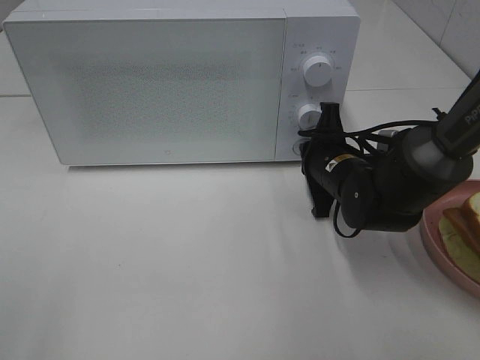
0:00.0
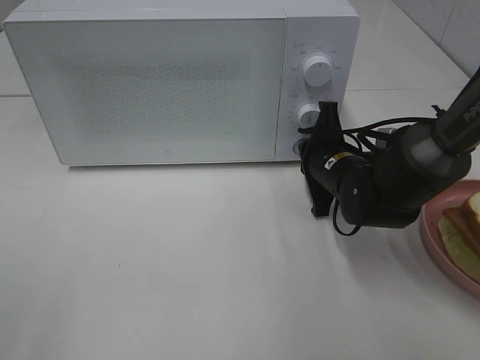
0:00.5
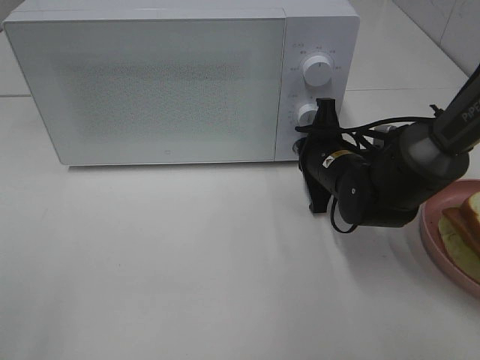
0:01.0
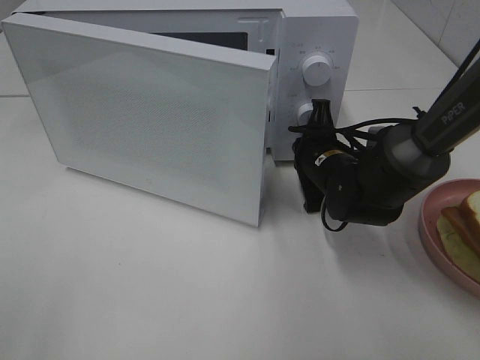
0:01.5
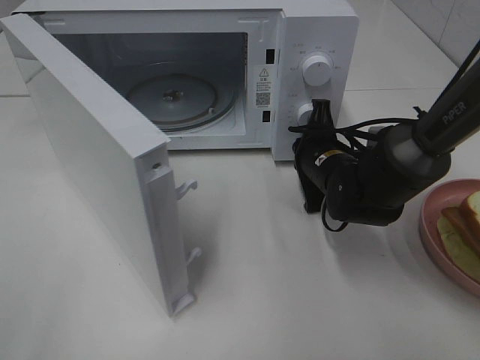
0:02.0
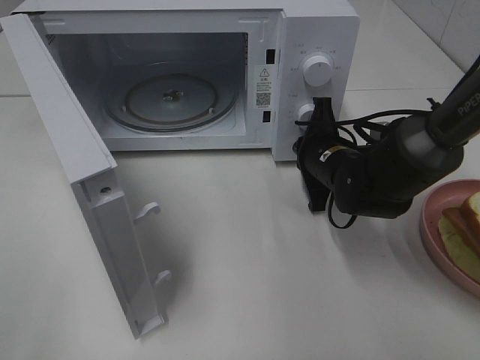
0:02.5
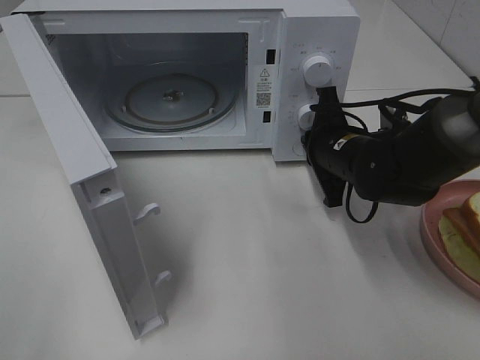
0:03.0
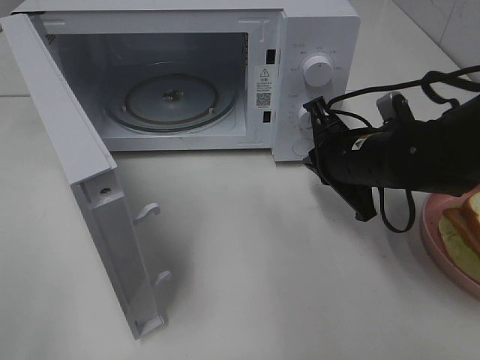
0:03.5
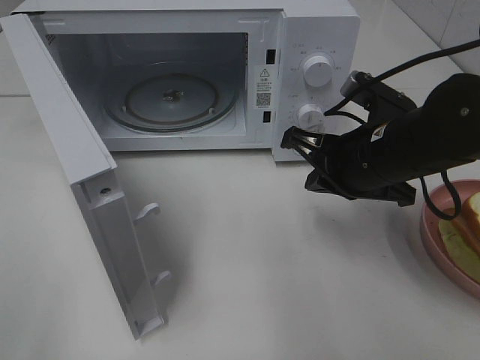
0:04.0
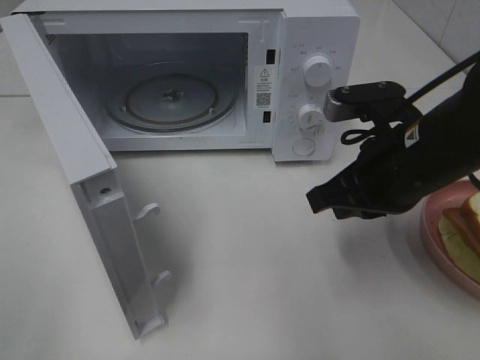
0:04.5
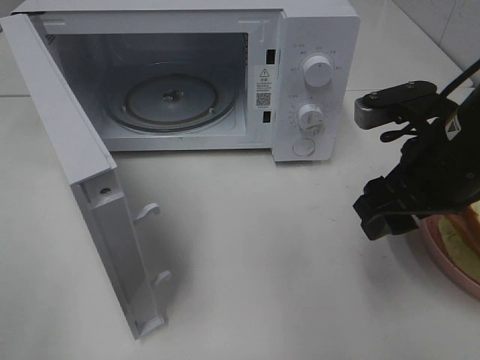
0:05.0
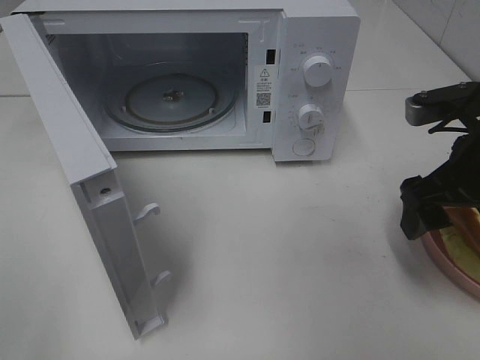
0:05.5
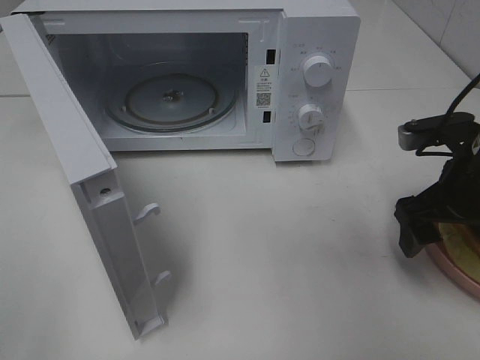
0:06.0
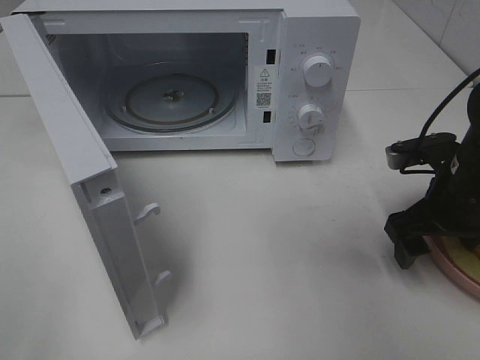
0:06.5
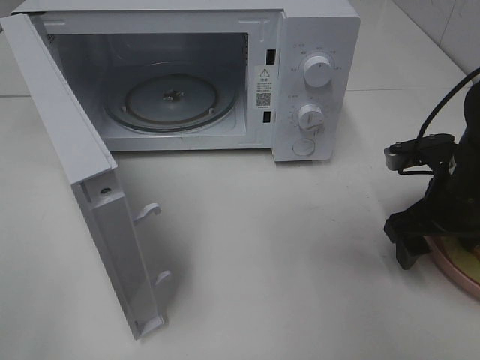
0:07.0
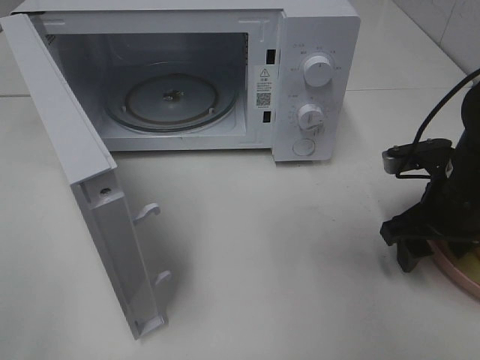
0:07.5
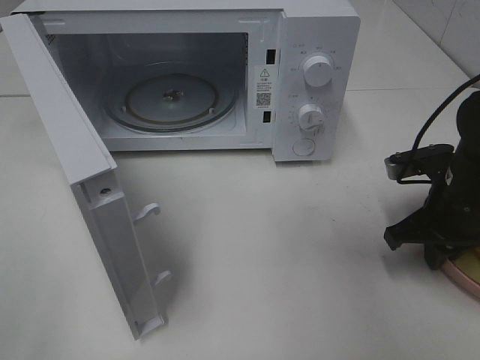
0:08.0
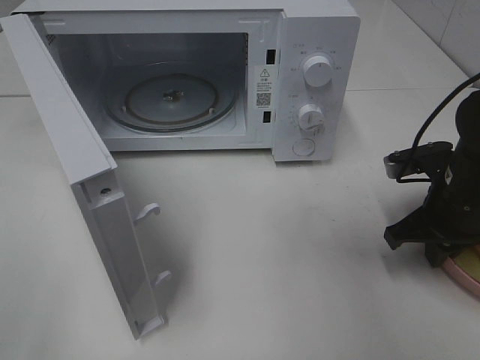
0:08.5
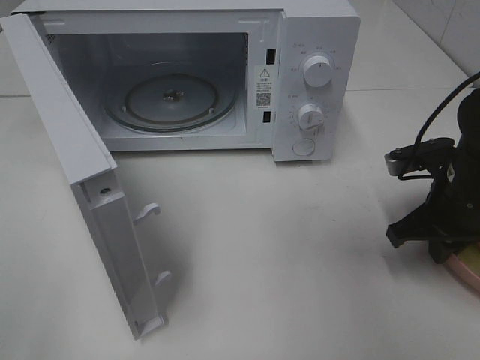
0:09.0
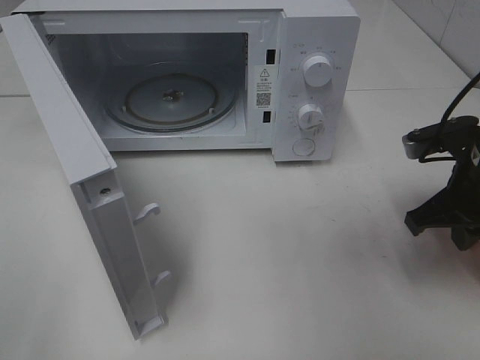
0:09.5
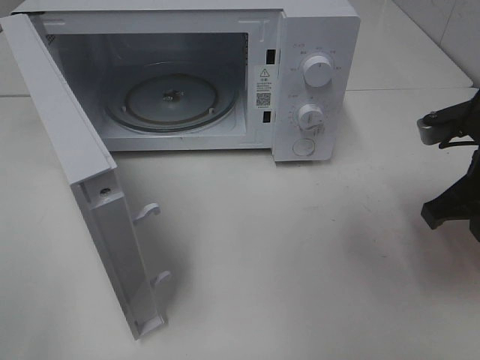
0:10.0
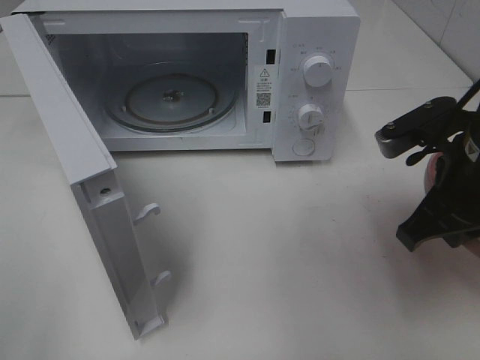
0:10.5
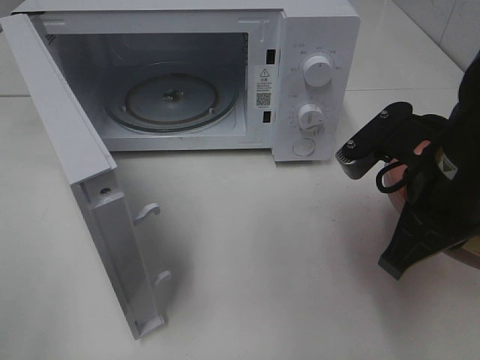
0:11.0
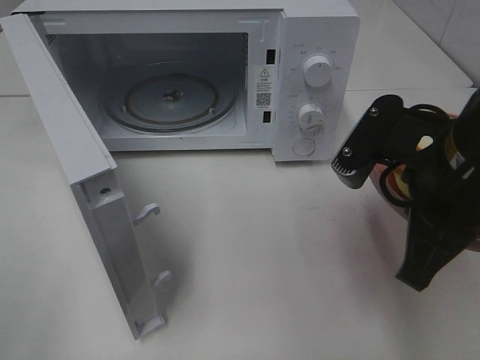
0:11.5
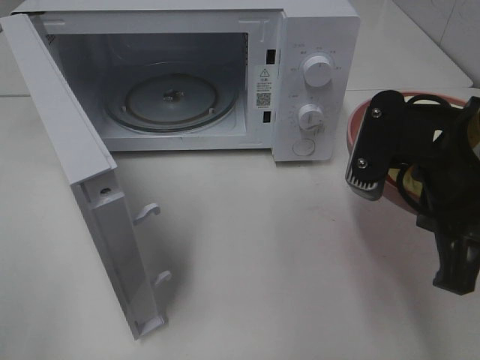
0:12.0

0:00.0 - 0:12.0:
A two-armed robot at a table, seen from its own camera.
Task of the whole recording: Heat Sandwich.
Step, 0:00.0 - 0:03.0: Right hand: press the switch.
Step, 0:03.5 - 0:08.5: Right hand: grab the plate with the sandwich.
0:02.0 - 0:04.0: The right gripper goes about 10 cm upward and backward.
0:04.0 - 0:06.0: The right gripper heads to the right, covering approximately 10 cm, and opens its fingers.
0:06.0 - 0:08.0: The right gripper closes its fingers.
0:08.0 - 0:10.0: The right gripper is displaced upward by approximately 10 cm.
0:10.0 - 0:12.0: The right gripper shifts roughly 10 cm to the left, backward and upward.

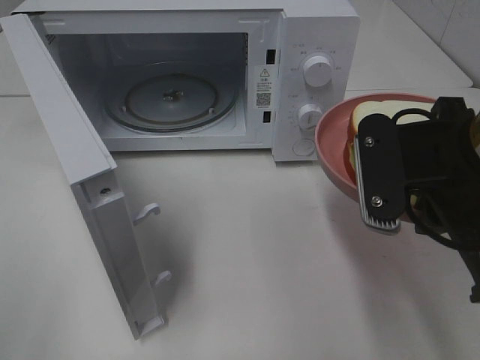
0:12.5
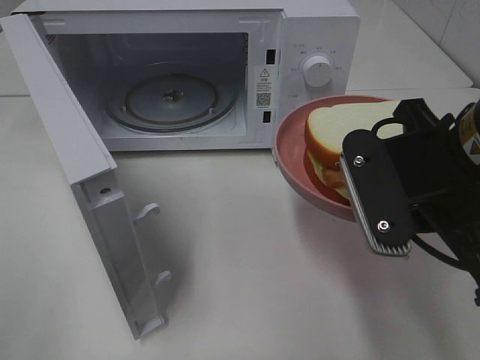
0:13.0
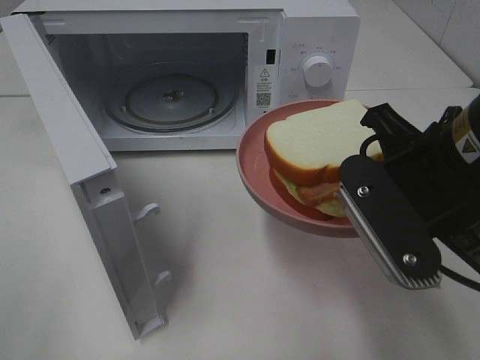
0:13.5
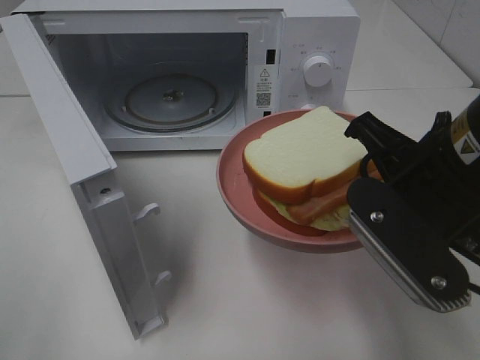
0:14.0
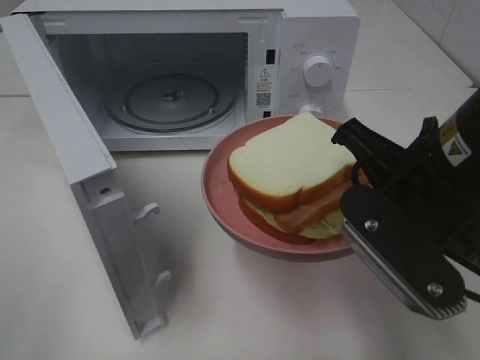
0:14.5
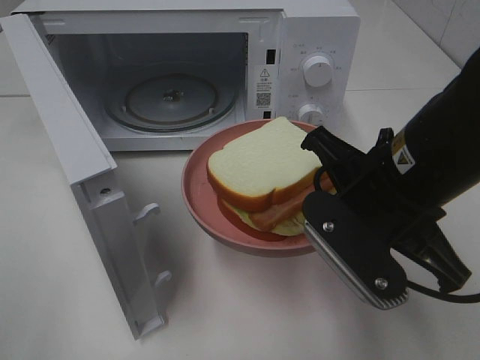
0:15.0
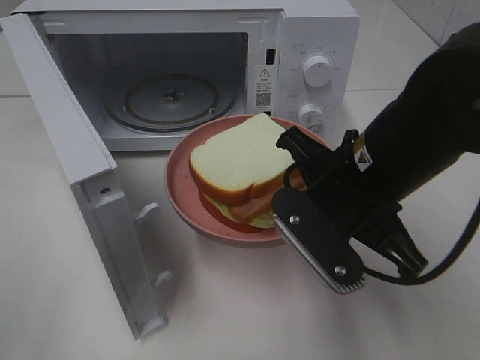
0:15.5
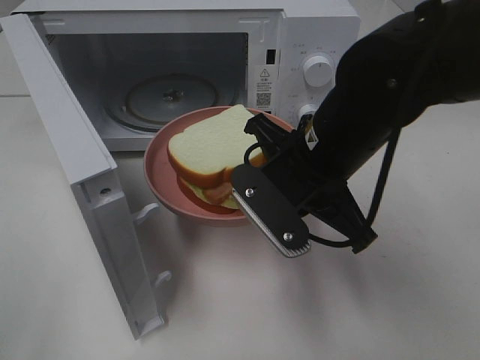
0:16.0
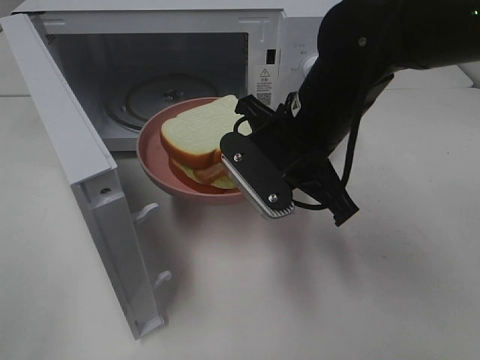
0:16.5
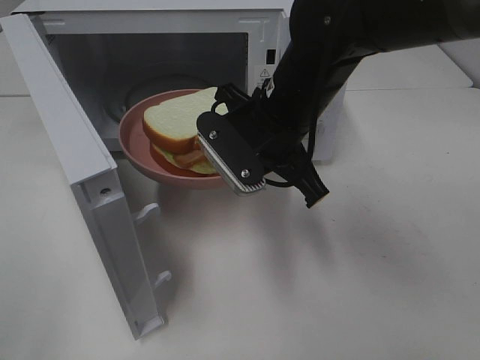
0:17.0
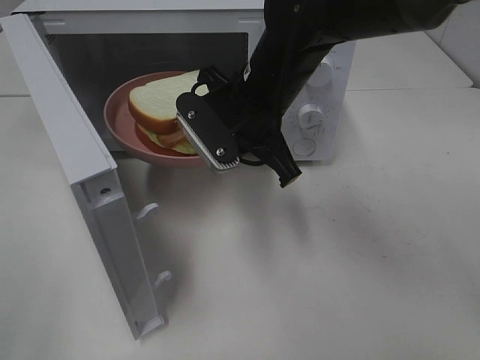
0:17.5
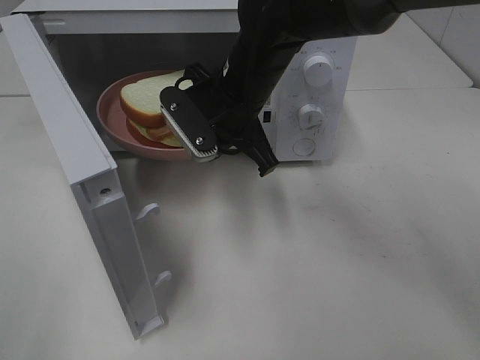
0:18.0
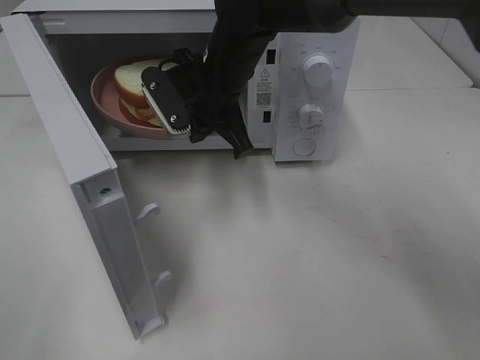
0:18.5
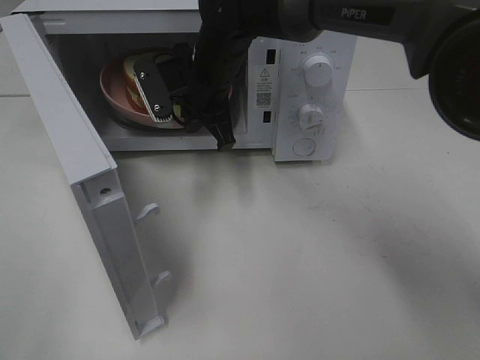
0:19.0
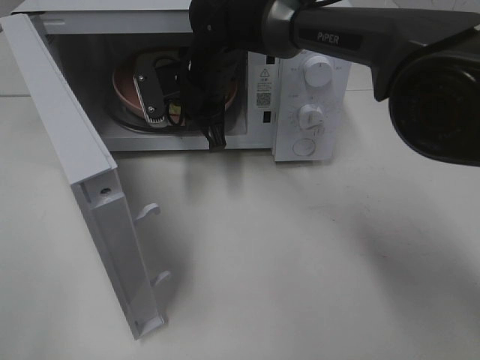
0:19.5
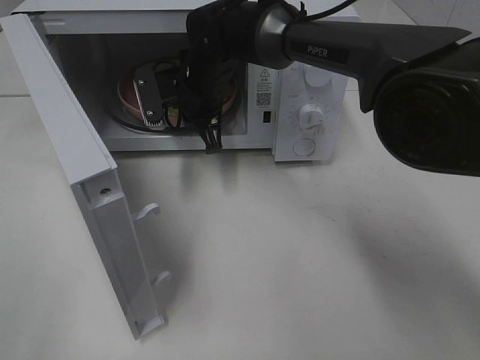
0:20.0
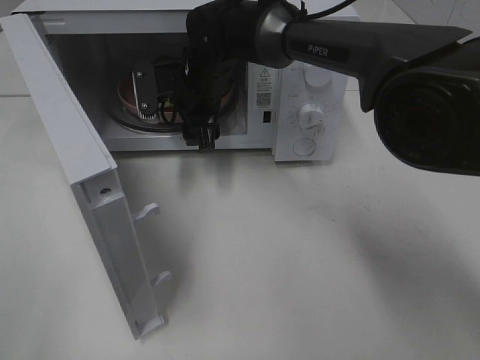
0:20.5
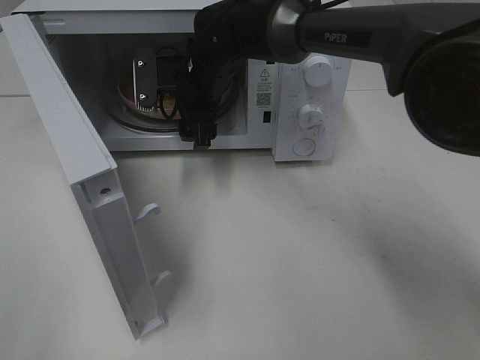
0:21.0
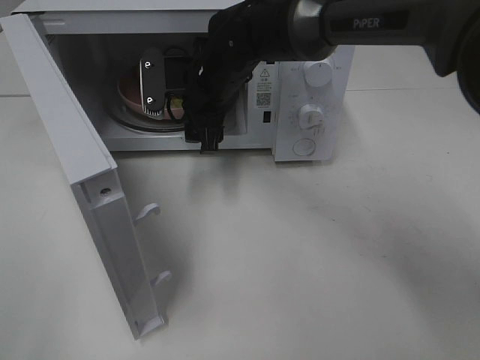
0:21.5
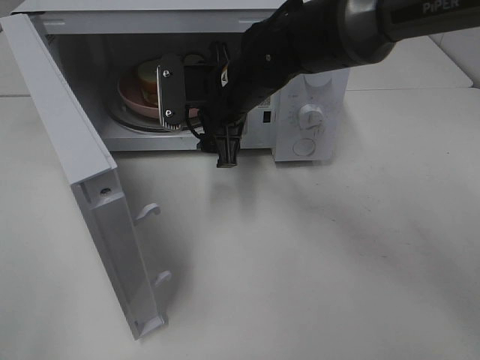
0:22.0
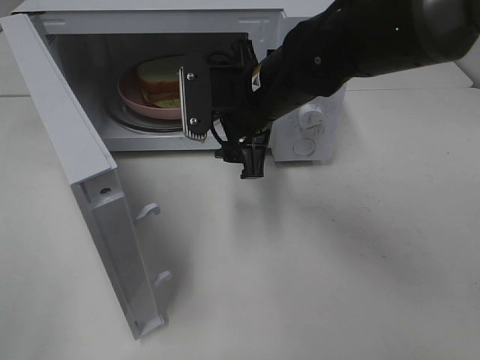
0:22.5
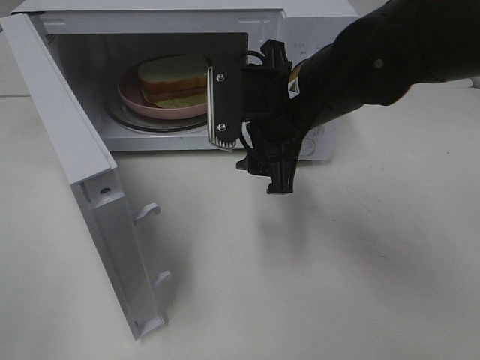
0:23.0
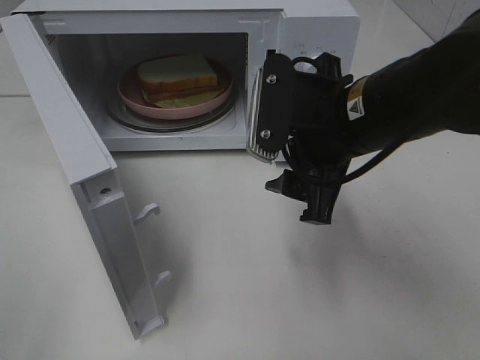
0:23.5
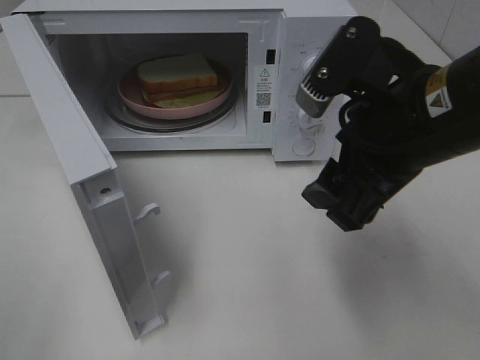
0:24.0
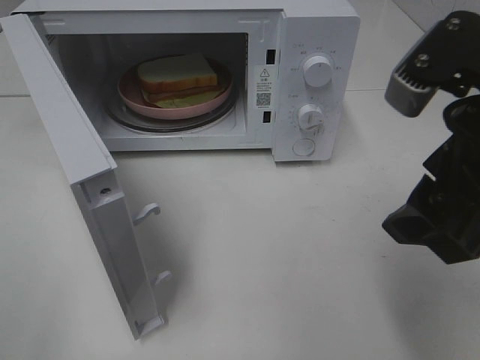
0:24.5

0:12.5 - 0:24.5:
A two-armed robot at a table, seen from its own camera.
Task of the whole recording: Heat Sandwich.
Step, 0:12.5 - 0:22.0: Right hand: place the plate in the microwave.
0:14.5 - 0:16.5: The right gripper moves forward and to the left, approximately 15 cm.
0:16.5 - 0:18.5: The right gripper shifts approximately 15 cm forward and to the left.
0:18.5 - 0:20.5: The right gripper moves forward, roughly 5 cm, and opens its fingers.
0:20.5 - 0:22.5: The right gripper is displaced backward and to the right by about 15 cm.
0:22.5 - 0:24.5: The right gripper heads backward, to the right and upward, covering approximately 25 cm.

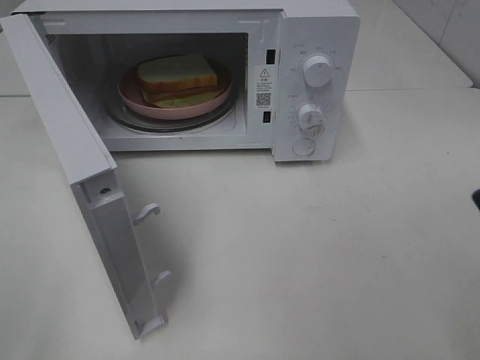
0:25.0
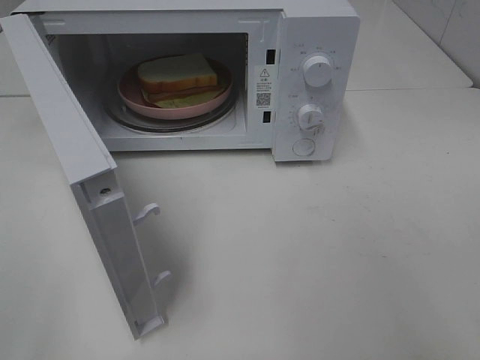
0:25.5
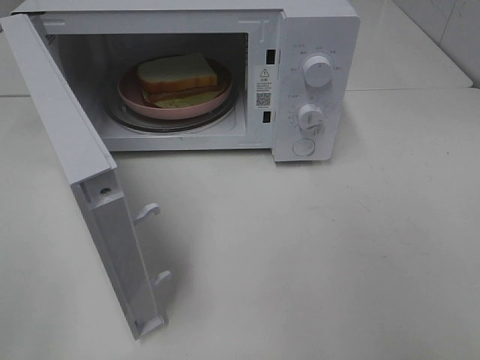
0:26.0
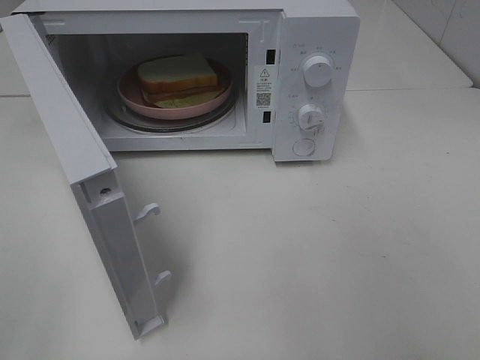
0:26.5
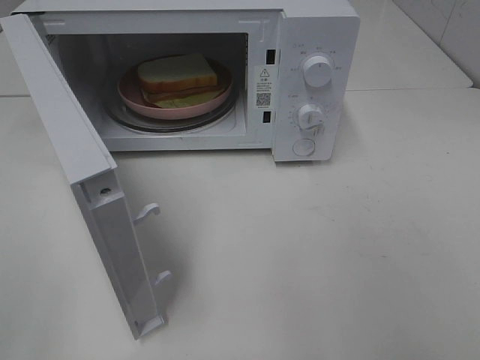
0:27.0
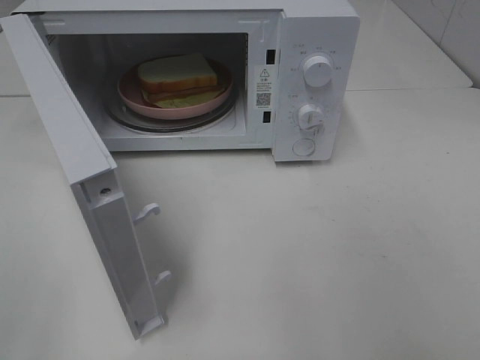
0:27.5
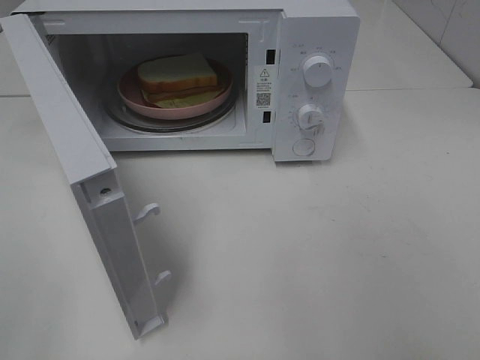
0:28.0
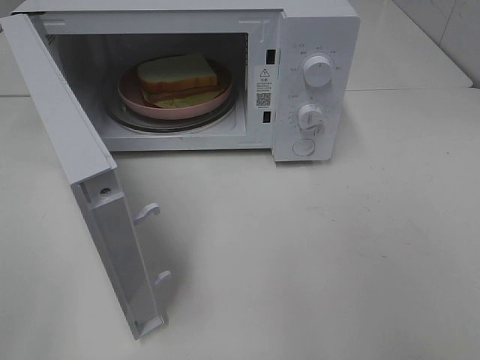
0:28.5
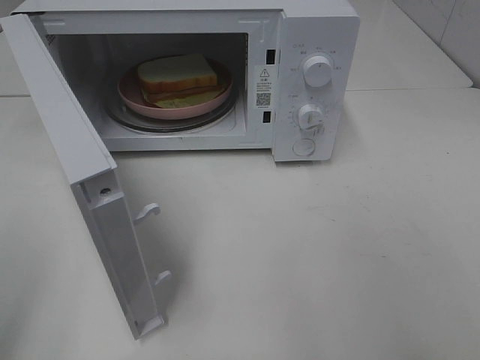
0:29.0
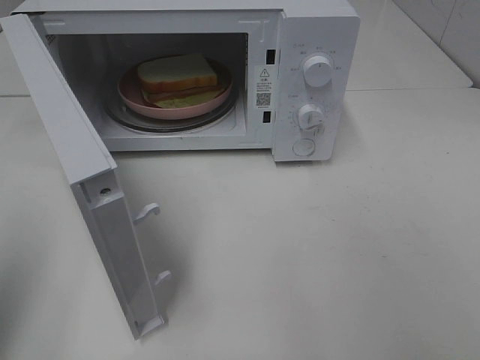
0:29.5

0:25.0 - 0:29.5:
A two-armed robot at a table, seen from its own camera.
Task of the whole recording: Heat Sandwich.
0:27.0 - 0:29.5: The left gripper moves forward, roughly 10 cm, and closes.
